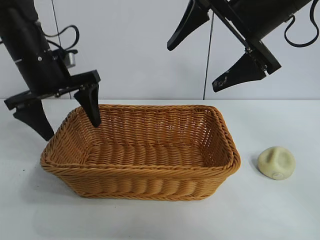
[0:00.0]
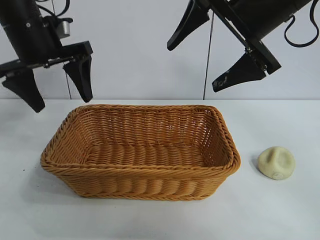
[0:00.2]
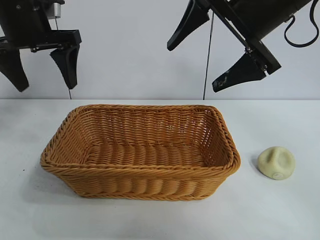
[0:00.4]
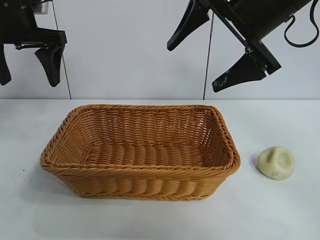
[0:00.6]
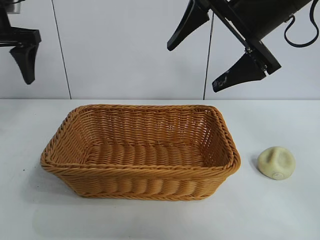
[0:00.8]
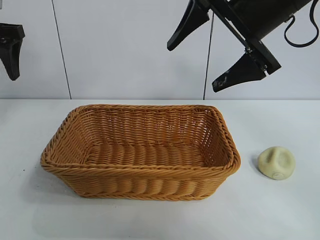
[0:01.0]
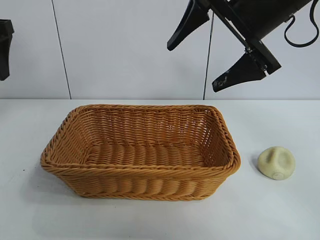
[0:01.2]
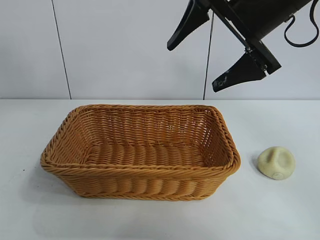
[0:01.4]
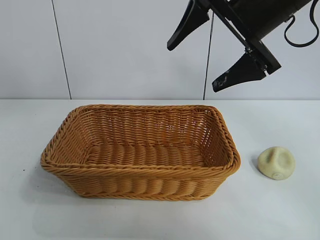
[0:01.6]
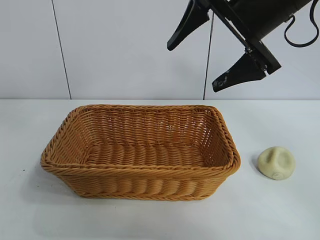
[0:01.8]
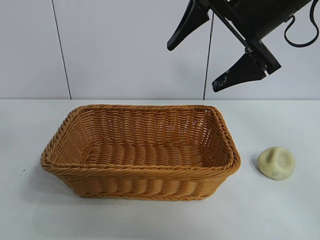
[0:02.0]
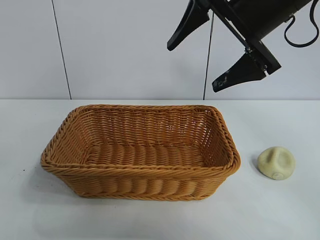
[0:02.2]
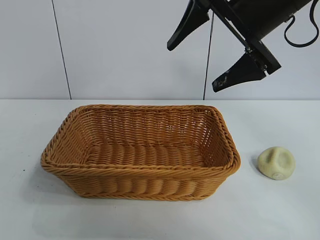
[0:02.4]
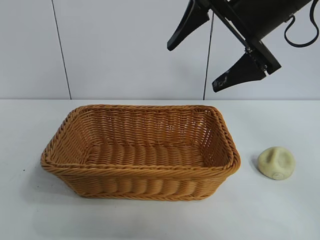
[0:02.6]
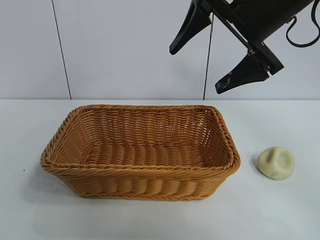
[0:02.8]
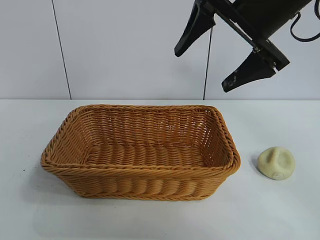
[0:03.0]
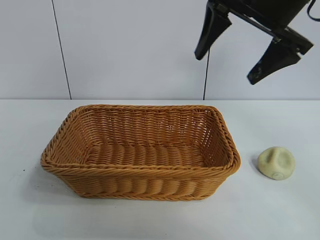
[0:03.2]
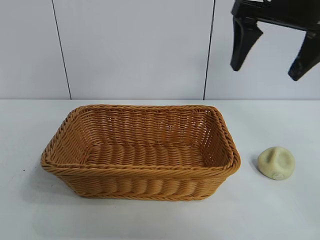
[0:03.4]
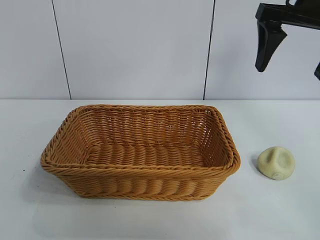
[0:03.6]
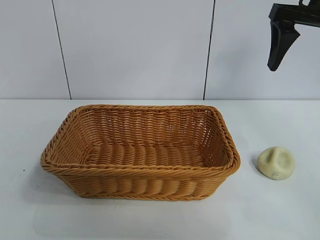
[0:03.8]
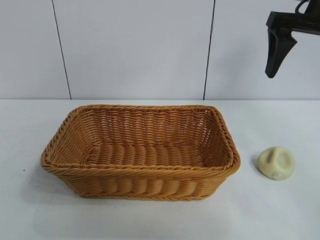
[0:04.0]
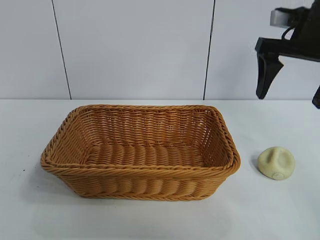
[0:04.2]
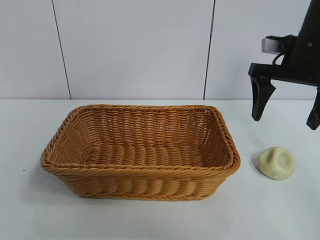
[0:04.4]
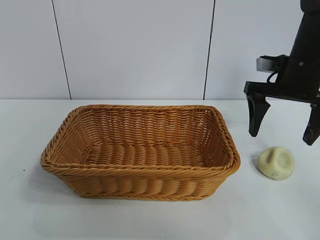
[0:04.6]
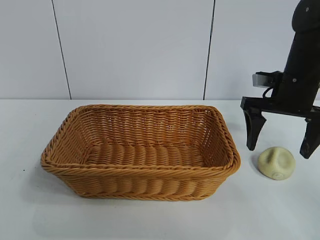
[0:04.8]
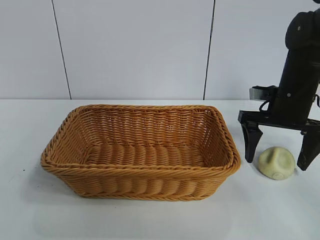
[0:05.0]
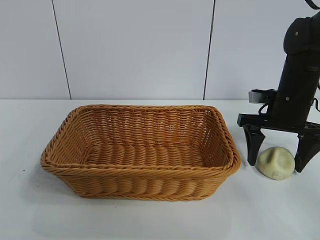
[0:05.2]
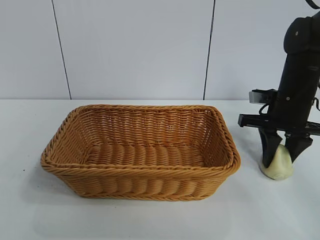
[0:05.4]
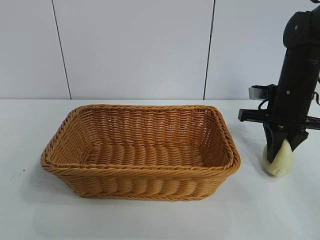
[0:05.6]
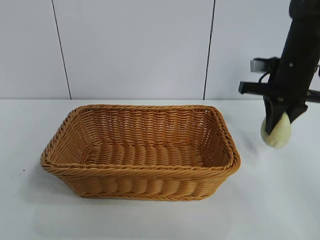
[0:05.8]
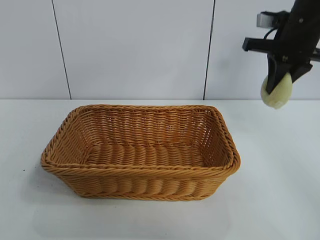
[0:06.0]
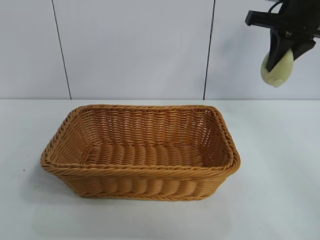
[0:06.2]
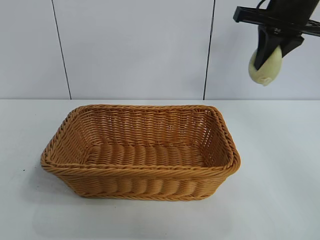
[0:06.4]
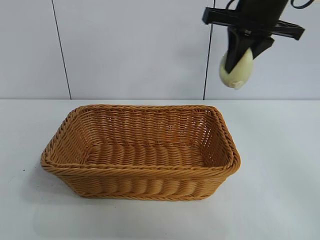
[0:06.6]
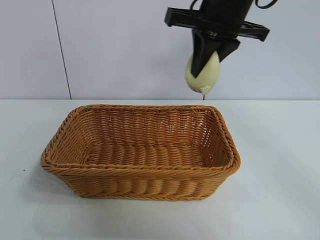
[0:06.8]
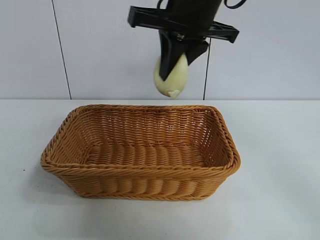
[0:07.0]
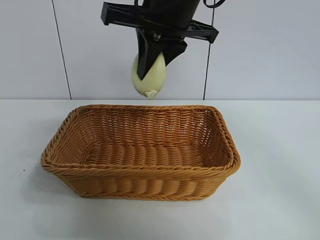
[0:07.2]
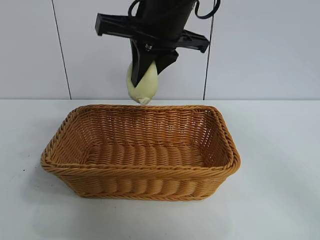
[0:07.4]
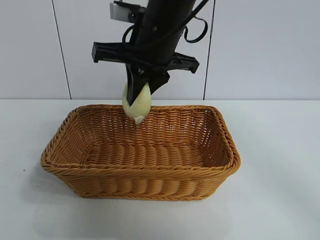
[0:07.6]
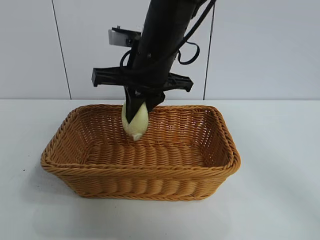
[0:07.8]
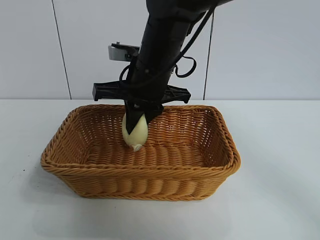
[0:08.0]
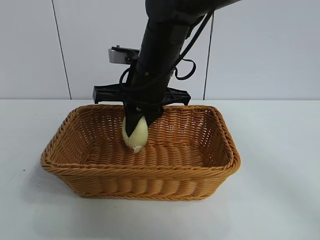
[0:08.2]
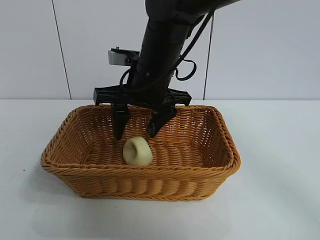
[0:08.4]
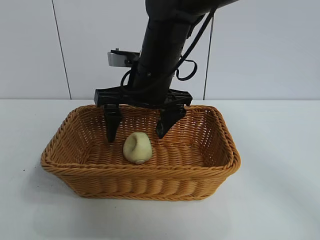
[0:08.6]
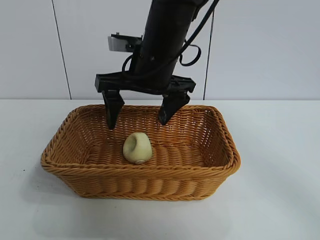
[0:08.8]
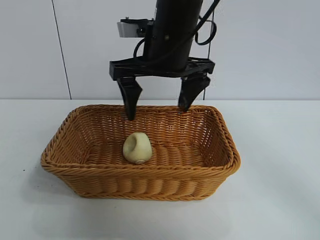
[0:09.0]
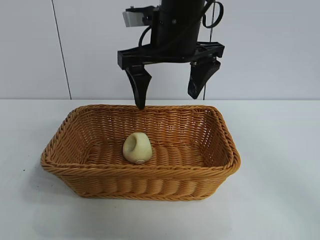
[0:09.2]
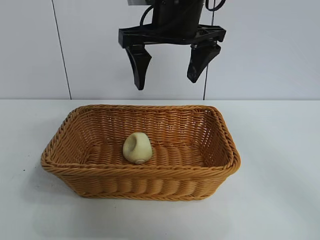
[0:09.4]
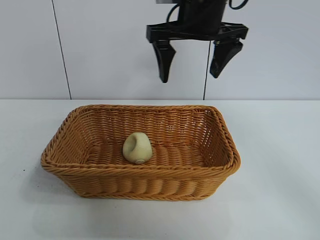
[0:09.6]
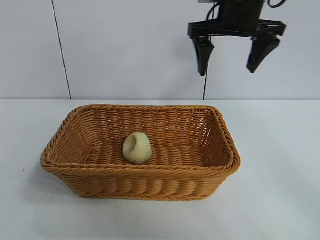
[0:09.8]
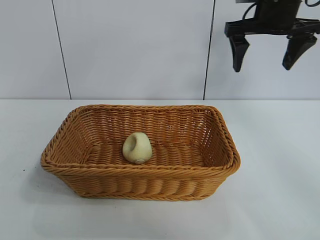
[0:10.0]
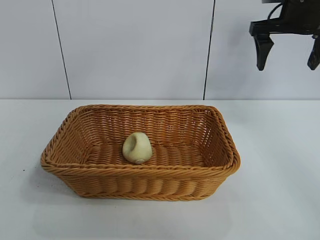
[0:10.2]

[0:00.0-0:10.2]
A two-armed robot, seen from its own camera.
Task of the whole recording: pick up the egg yolk pastry and put it into the basket.
Step, 0:00.0 to 0:05.4: Grasp egg yolk pastry with right gripper.
Step, 0:05.8 to 0:08.4: Place the egg yolk pastry in the basket with right gripper.

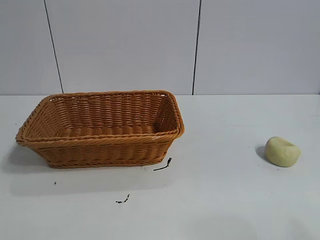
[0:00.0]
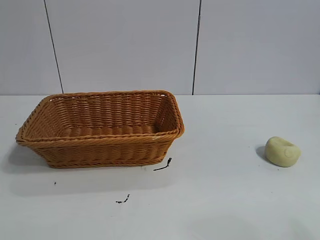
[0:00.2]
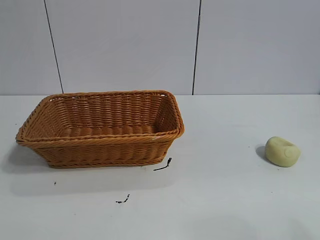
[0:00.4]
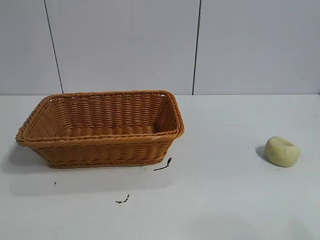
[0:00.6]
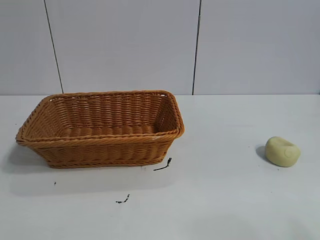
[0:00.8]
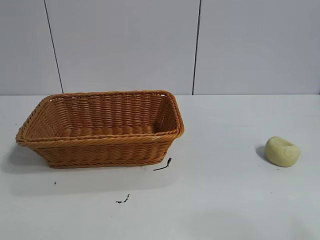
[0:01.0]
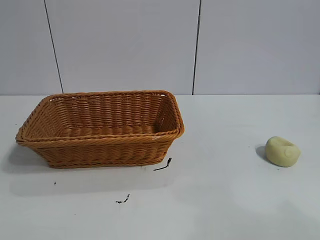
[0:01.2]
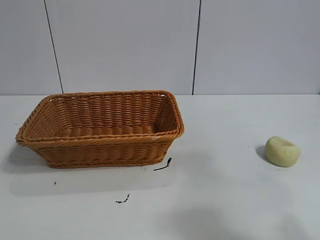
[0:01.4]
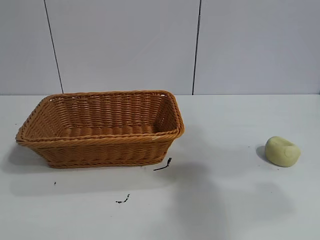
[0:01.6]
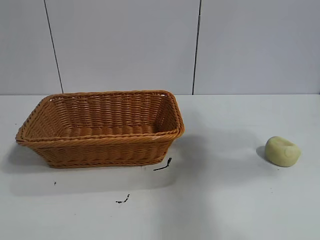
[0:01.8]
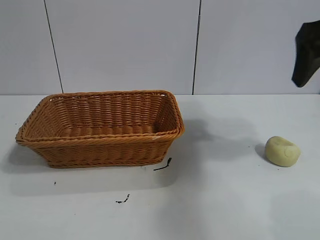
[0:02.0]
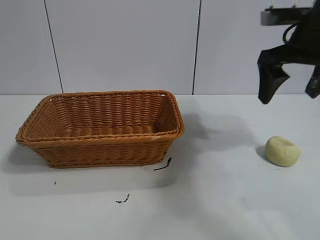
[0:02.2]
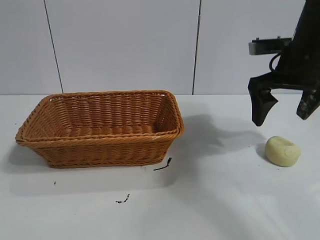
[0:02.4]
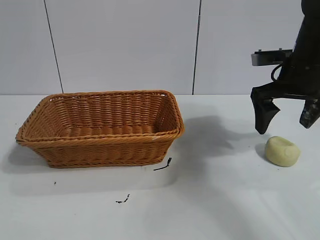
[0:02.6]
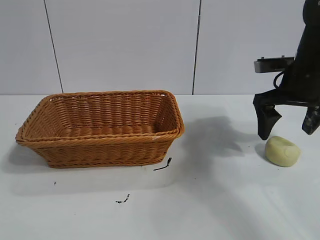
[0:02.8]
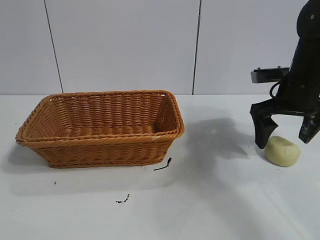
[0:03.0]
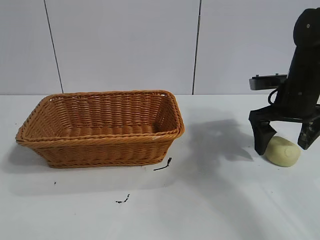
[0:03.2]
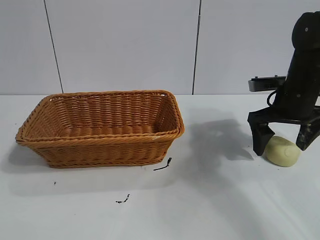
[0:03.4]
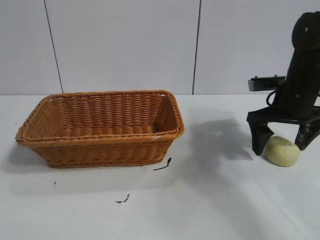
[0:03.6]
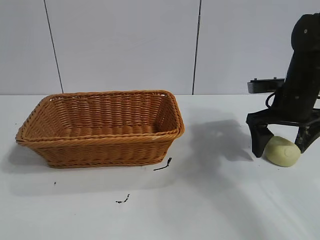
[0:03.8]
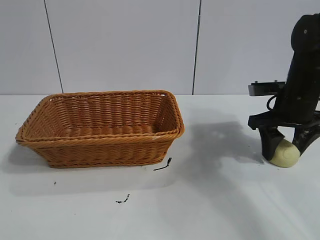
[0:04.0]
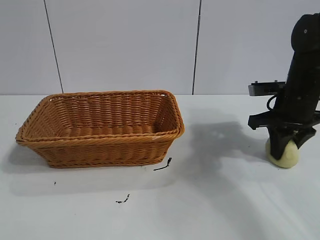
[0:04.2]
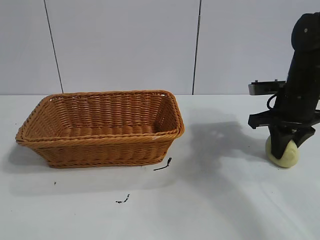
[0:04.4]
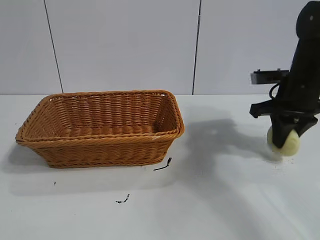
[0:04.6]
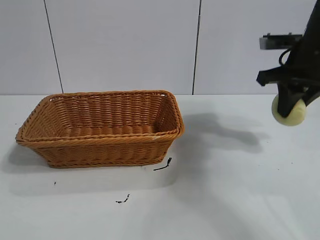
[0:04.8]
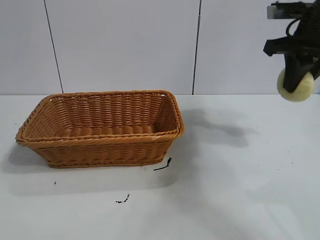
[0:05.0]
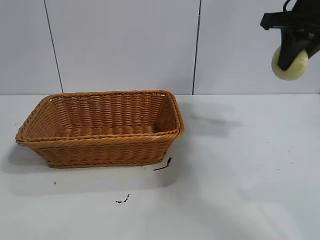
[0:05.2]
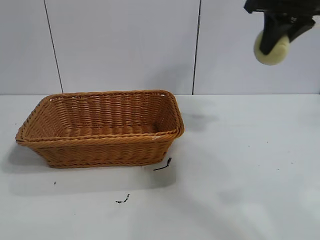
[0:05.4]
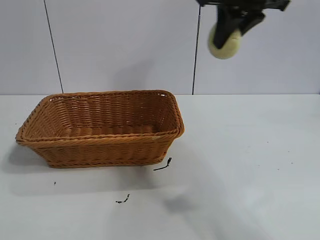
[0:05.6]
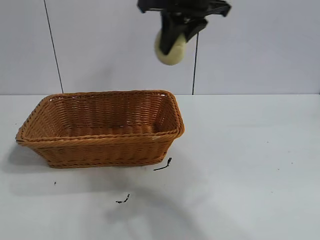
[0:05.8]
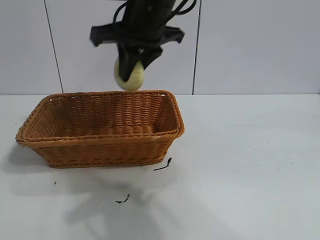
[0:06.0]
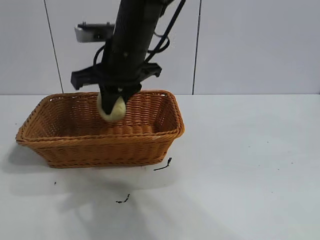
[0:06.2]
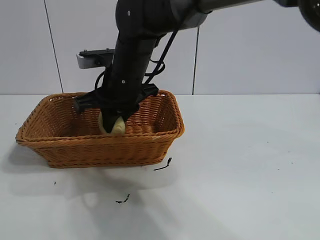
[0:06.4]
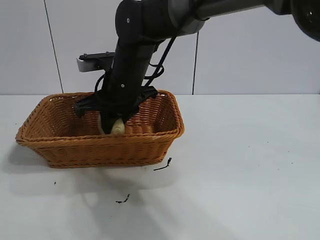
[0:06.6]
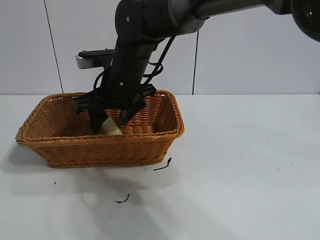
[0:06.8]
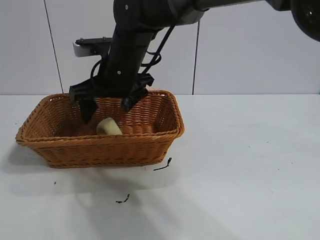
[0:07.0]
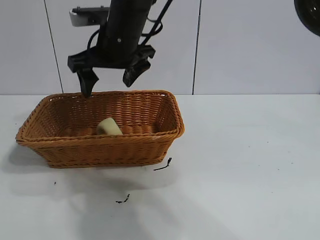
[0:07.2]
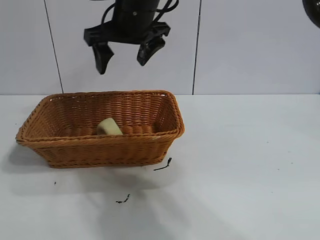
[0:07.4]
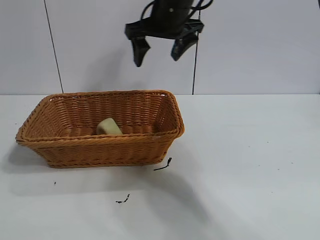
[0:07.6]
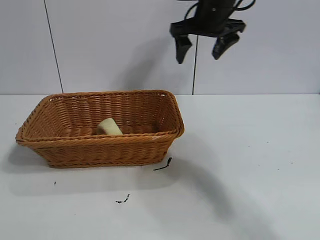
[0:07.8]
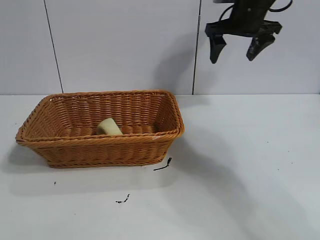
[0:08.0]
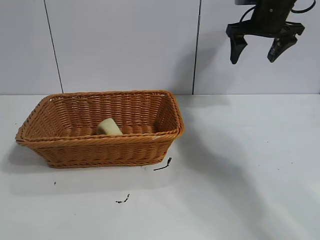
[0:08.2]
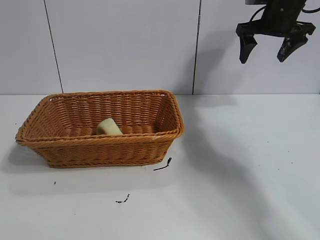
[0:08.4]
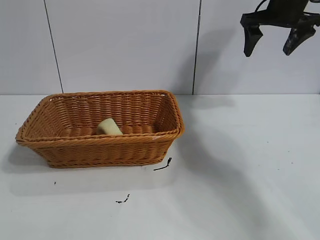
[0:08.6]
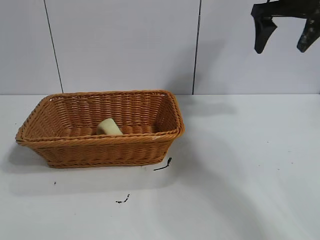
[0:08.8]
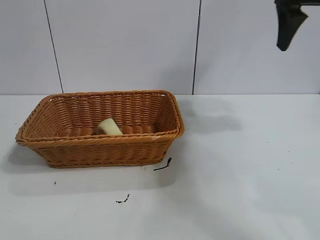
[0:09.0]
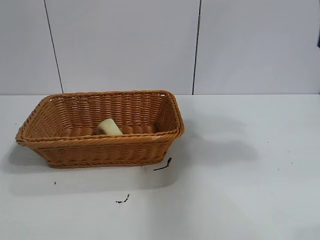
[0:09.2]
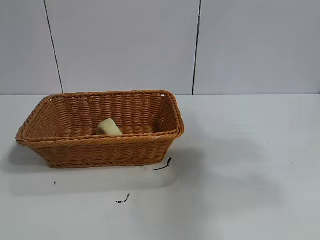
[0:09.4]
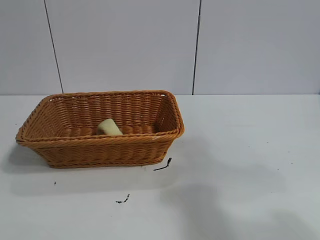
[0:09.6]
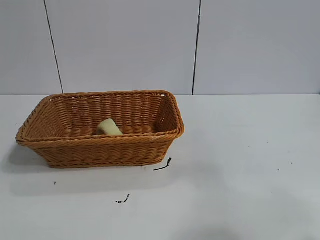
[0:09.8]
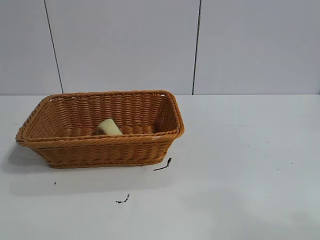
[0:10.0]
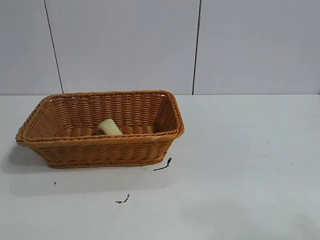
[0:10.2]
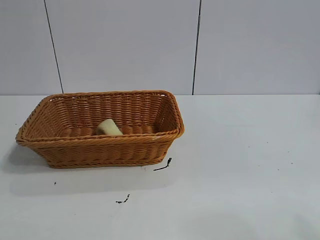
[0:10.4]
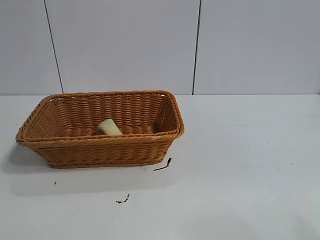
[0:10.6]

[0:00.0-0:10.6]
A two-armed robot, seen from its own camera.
Task of the whole recording: pick up the egg yolk pastry and put it into the basket.
Step, 0:01.0 to 0:04.0: Grasp egg yolk pastry with right gripper.
Step, 0:04.2 to 0:06.6: Place the egg yolk pastry in the basket with right gripper.
